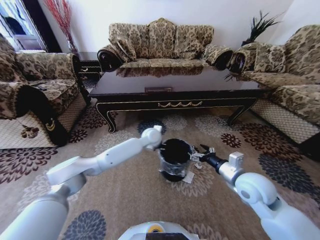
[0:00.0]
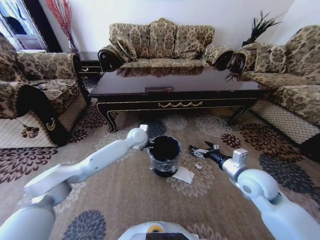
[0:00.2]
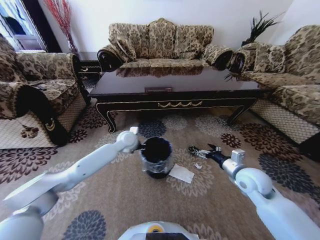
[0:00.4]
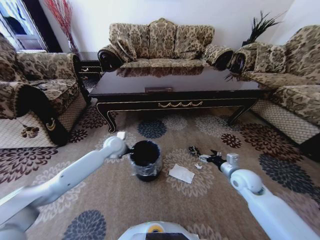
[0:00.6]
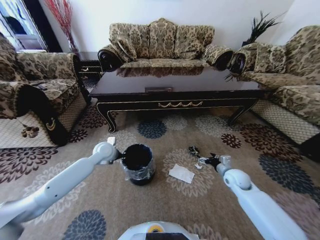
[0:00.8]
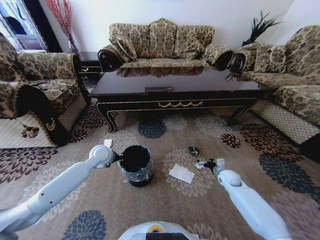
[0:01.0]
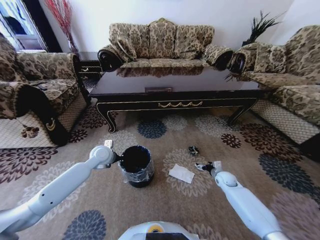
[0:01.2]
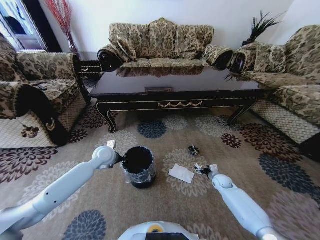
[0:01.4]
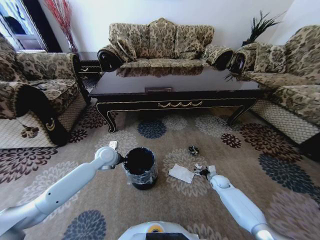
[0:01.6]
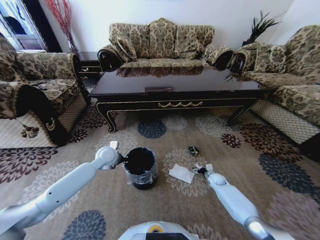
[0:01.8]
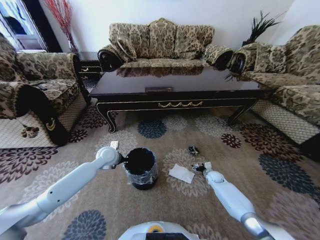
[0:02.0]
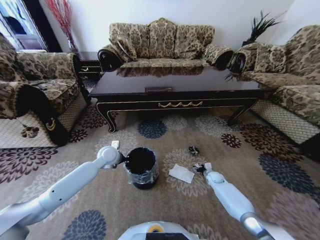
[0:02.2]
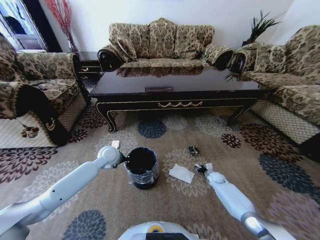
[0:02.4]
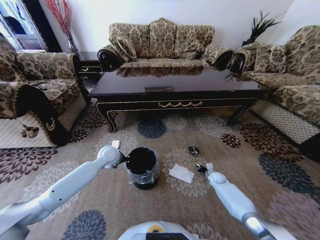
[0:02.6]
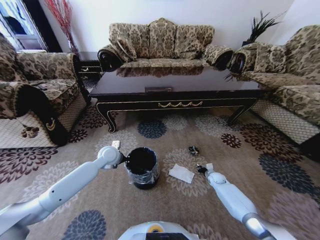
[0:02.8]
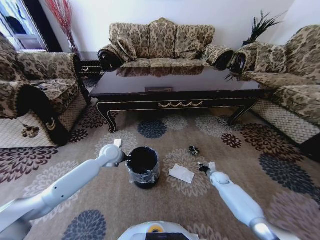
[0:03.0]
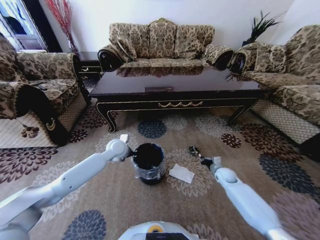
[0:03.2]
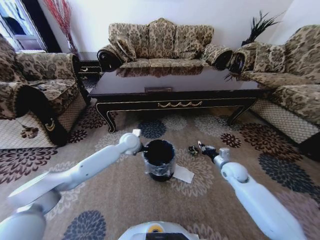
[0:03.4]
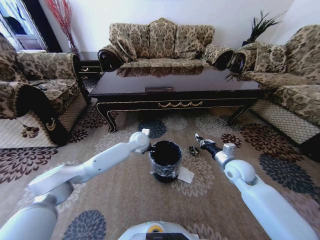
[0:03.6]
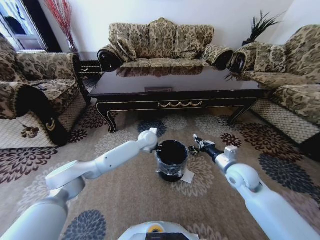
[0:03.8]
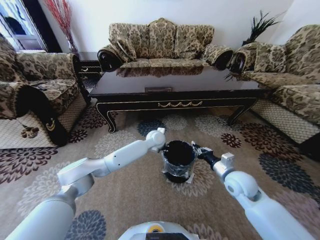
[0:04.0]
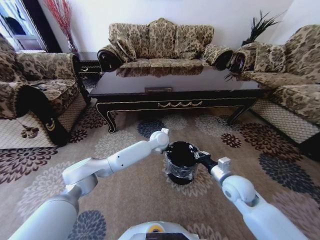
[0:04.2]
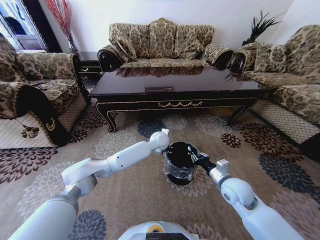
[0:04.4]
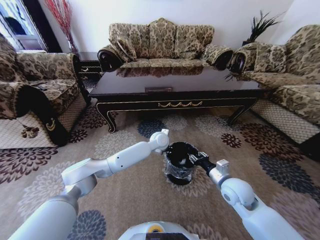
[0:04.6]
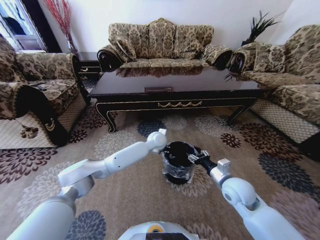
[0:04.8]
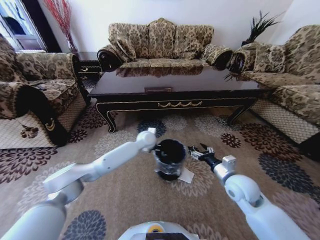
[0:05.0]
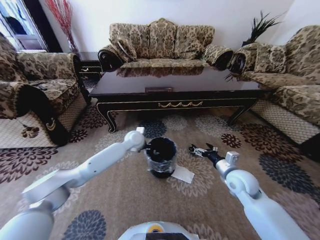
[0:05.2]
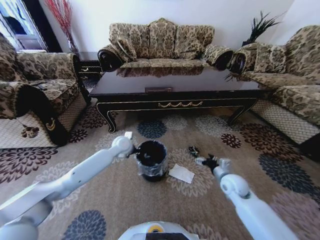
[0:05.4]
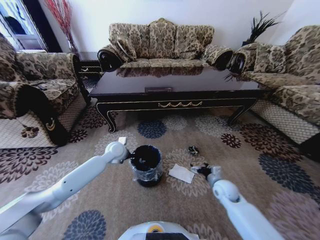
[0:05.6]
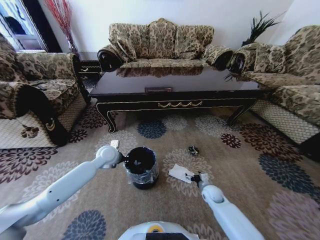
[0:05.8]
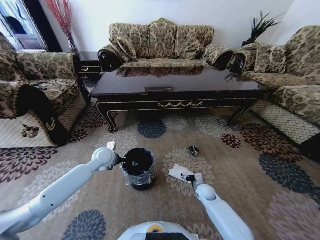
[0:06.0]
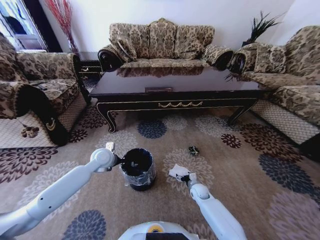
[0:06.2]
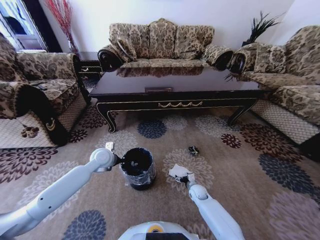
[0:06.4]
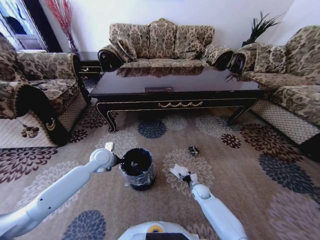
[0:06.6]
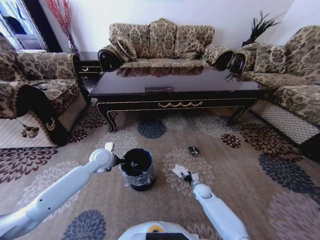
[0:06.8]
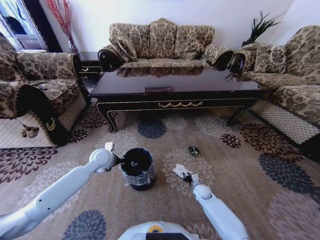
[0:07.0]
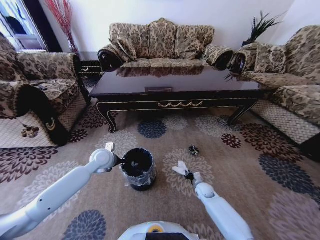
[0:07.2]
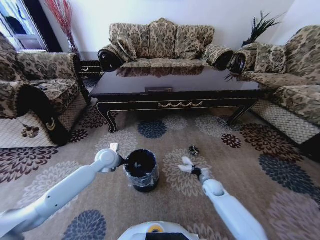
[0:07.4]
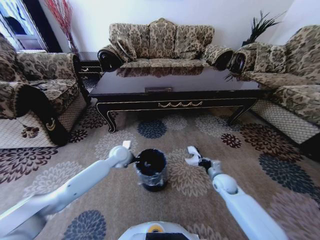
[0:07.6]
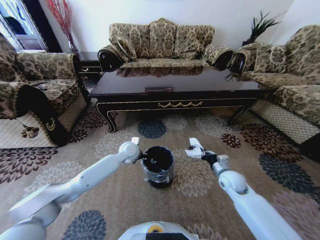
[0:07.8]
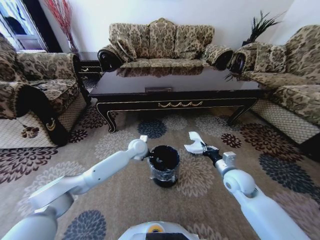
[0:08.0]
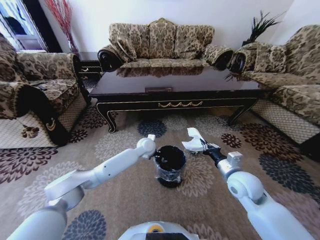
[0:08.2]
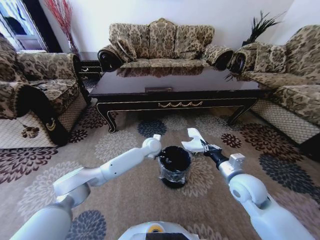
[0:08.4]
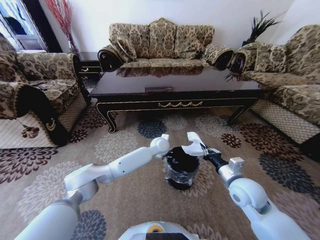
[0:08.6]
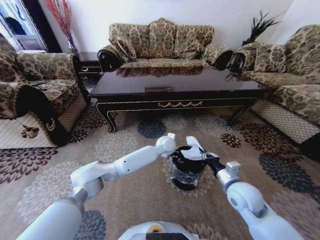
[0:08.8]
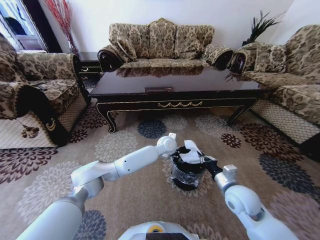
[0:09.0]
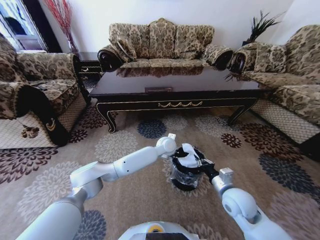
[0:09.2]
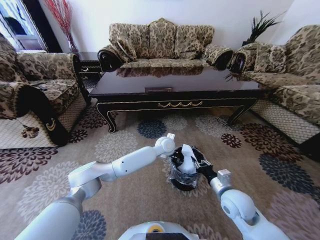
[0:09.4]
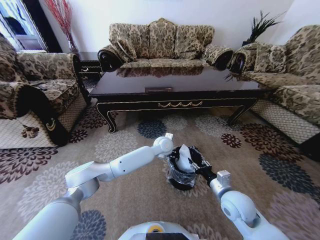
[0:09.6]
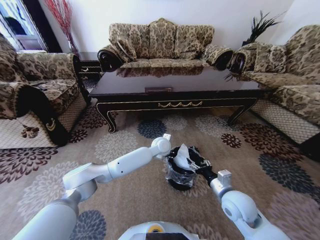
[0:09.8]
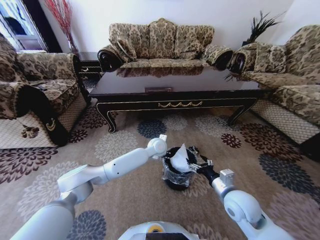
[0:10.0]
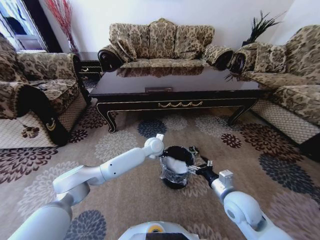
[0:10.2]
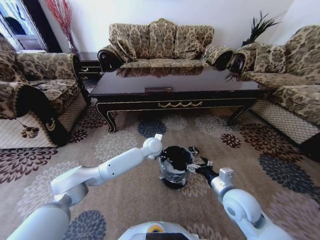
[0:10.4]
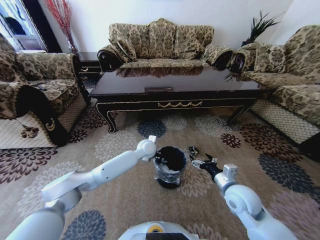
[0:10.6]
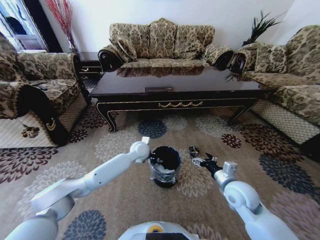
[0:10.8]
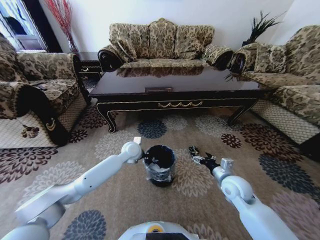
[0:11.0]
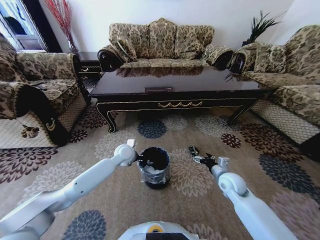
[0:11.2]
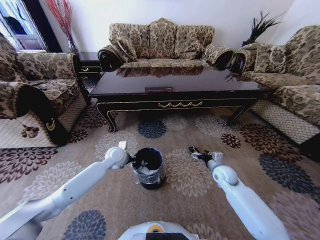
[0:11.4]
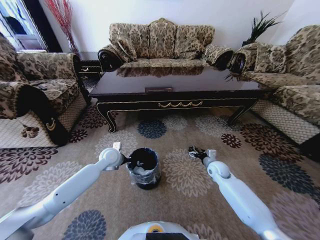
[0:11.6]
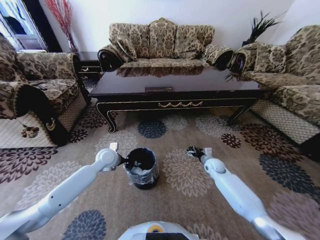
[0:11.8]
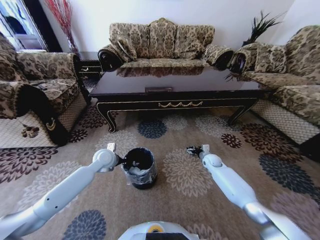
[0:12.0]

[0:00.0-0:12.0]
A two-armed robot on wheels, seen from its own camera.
Task of the whole recording: Move to the front of the table and pick up the trash from the floor, then place it into the trash bin.
0:00.0 to 0:01.6: The right gripper goes approximately 35 cm downward and forward, while the left gripper travels to the left by some 20 cm.
0:01.6 to 0:03.0: The right gripper closes.
0:03.0 to 0:04.4: The right gripper is displaced upward, backward and to the left by roughly 30 cm. Meanwhile the left gripper goes roughly 25 cm to the right.
0:04.4 to 0:06.0: The right gripper shifts approximately 25 cm downward, and opens, while the left gripper goes some 25 cm to the left.
0:06.0 to 0:07.6: The right gripper moves upward and to the right, about 15 cm, and closes up. The left gripper moves to the right, some 5 cm.
0:07.6 to 0:09.0: The left gripper moves to the right, some 25 cm. Meanwhile the right gripper travels upward and backward by about 15 cm.
0:09.0 to 0:10.4: The right gripper opens its fingers. Meanwhile the left gripper moves to the left, approximately 5 cm.
0:10.4 to 0:12.0: The right gripper goes about 30 cm forward and downward. Meanwhile the left gripper heads to the left, covering some 25 cm.

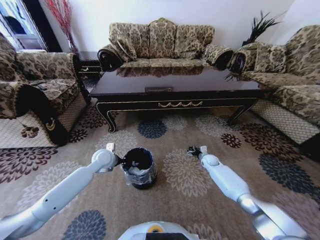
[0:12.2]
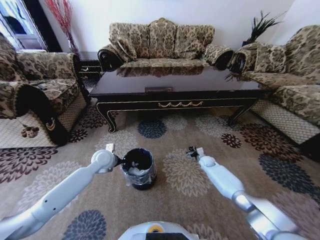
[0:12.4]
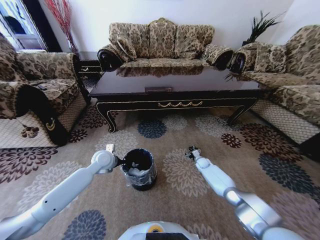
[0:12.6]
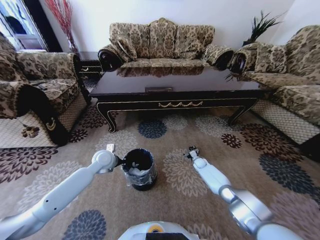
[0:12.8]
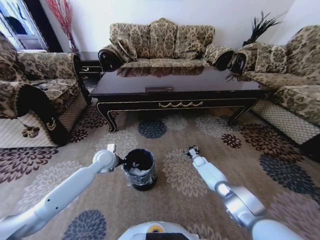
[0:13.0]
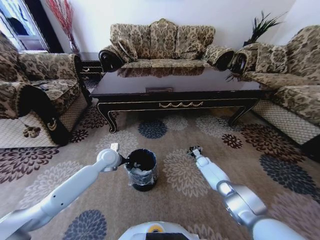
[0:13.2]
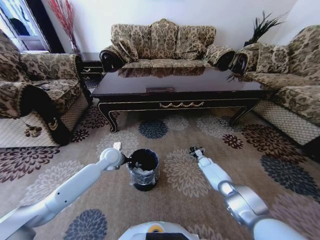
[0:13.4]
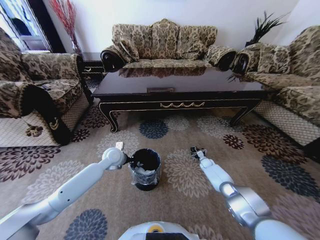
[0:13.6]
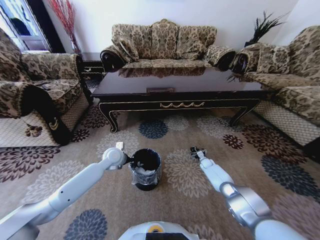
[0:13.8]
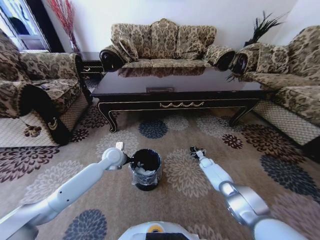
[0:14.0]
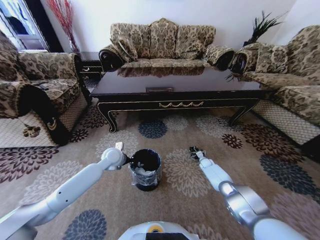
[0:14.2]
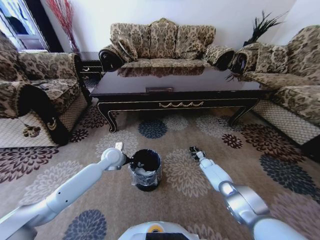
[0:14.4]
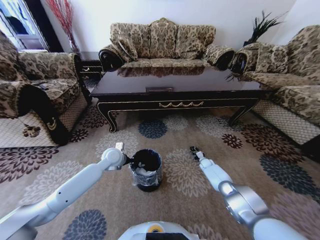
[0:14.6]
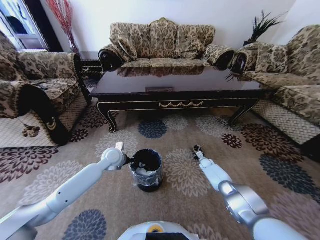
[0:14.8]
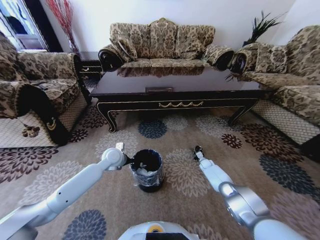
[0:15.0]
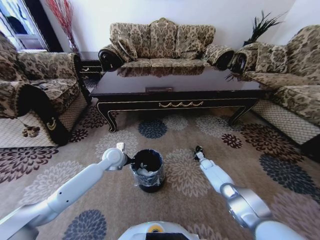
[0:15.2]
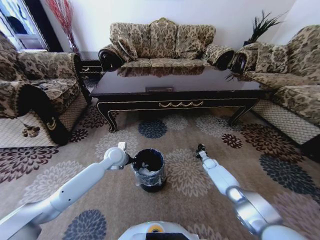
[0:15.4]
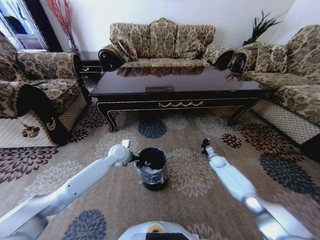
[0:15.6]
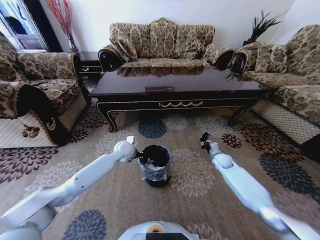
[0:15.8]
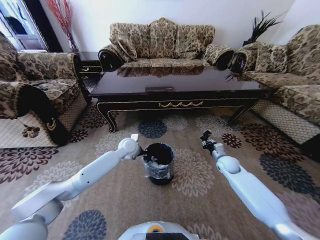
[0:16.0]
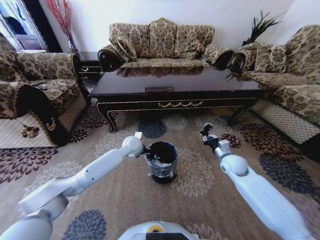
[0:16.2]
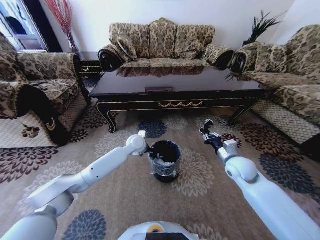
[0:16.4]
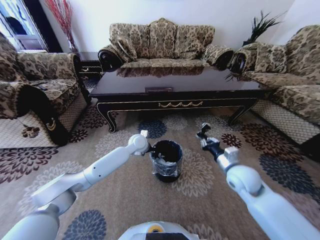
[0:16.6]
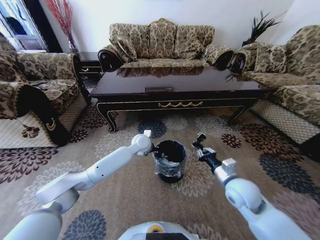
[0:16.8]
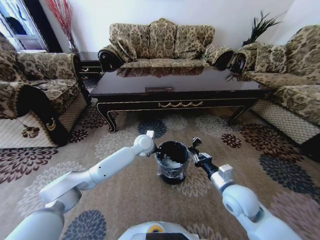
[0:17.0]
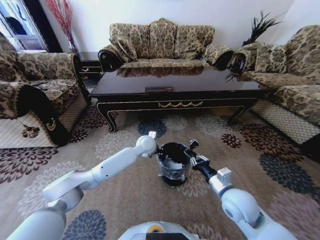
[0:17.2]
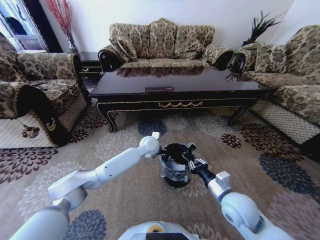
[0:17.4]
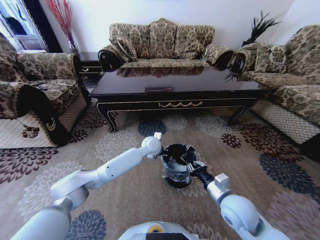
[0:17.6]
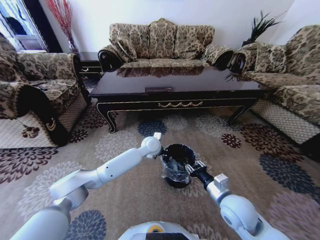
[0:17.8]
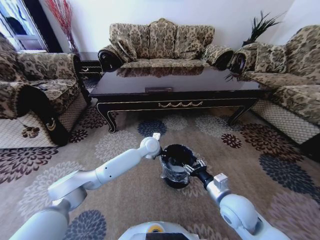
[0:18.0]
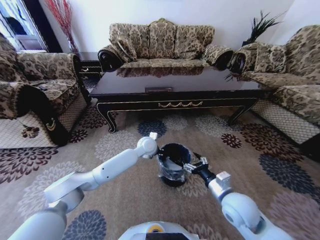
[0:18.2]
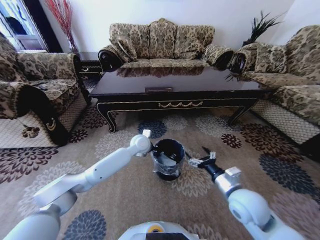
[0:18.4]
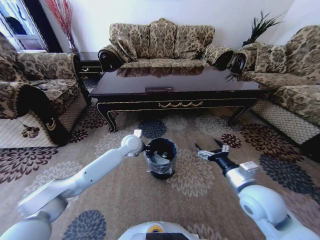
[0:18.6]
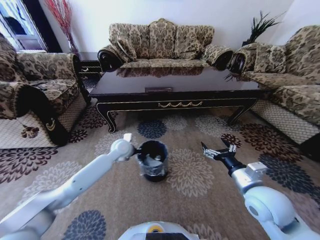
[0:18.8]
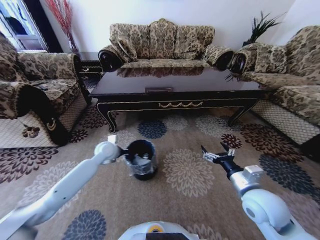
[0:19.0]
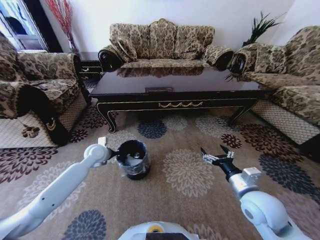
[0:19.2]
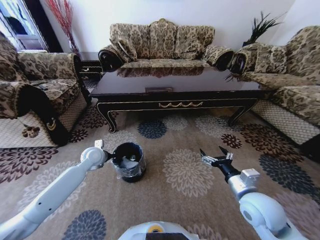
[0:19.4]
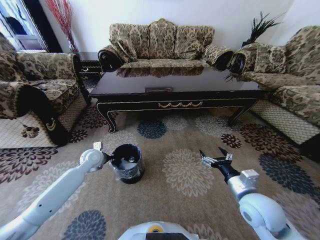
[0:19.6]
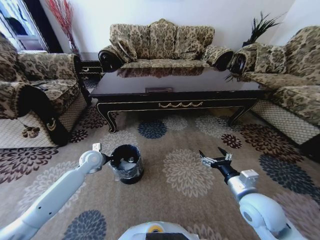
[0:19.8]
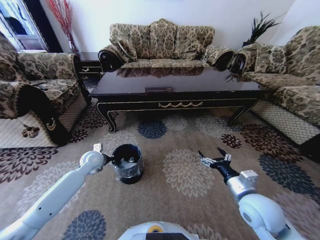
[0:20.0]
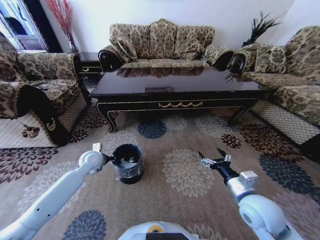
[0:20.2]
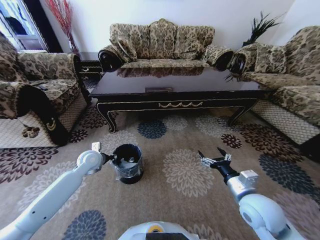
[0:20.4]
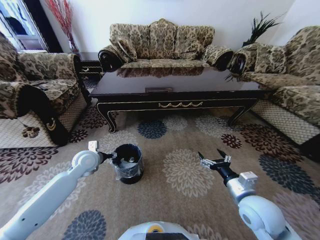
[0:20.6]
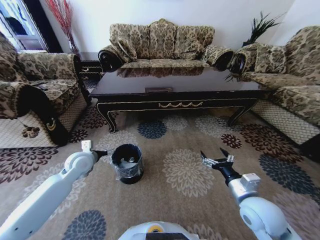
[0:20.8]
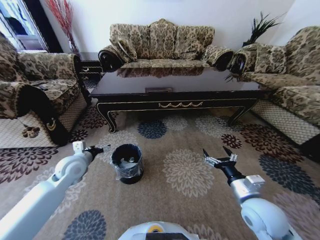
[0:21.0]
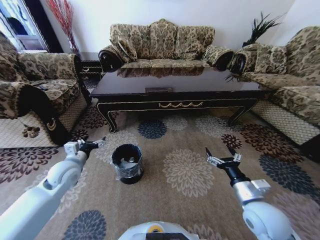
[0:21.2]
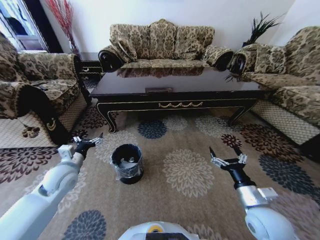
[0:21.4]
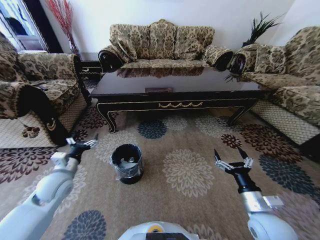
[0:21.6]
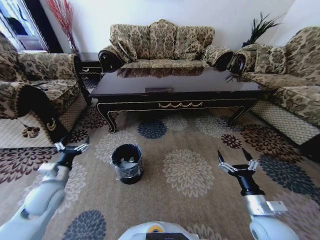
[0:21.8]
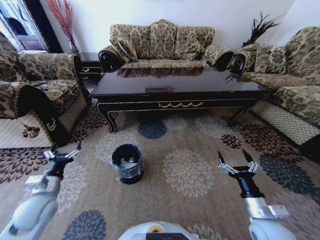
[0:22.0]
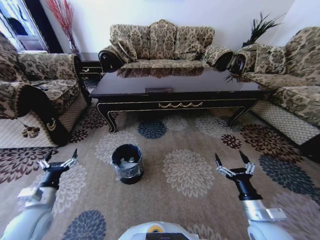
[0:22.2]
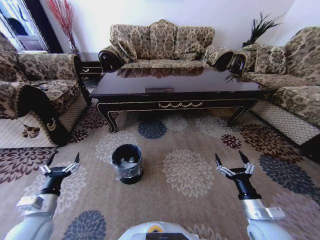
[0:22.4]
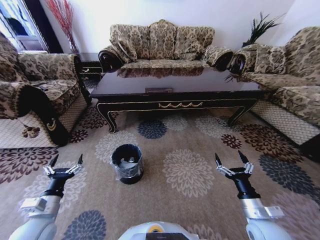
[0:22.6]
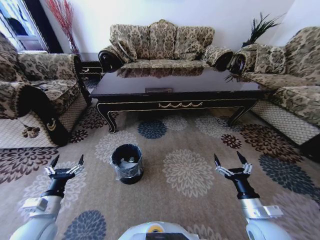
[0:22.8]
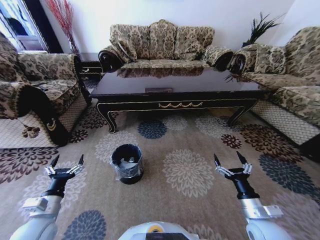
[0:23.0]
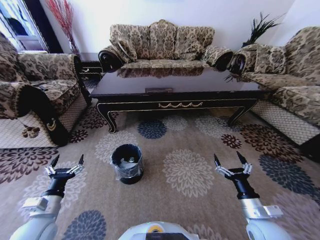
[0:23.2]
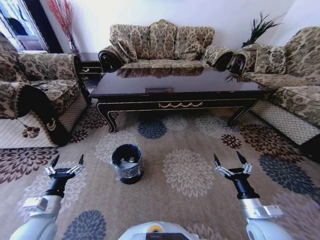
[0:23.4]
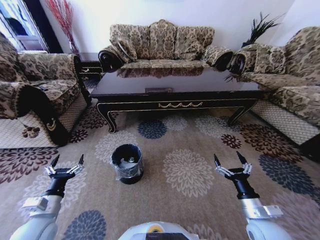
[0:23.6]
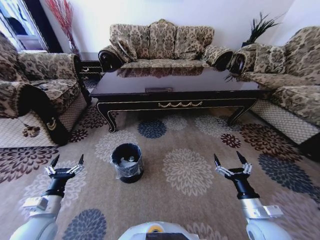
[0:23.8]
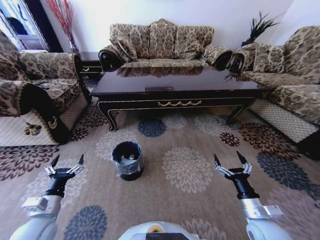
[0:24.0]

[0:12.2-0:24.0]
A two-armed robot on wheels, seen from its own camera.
Task of the whole recording: Move to the front of the table and pick up the trash from the floor, then place it into the trash bin.
0:12.2 to 0:13.6: The right gripper shifts about 10 cm downward.
0:13.6 to 0:15.2: The right gripper closes.
0:15.2 to 0:16.6: The right gripper is displaced upward and backward by about 35 cm. Meanwhile the left gripper shifts roughly 15 cm to the right and forward.
0:16.6 to 0:18.2: The right gripper heads backward, covering approximately 10 cm, and opens its fingers.
0:18.2 to 0:19.6: The left gripper travels to the left by roughly 25 cm.
0:19.6 to 0:21.0: The left gripper goes about 5 cm backward, and opens up.
0:21.0 to 0:22.6: The left gripper goes roughly 20 cm backward; the right gripper heads downward, covering approximately 5 cm.
0:22.6 to 0:24.0: Neither gripper changes place.
